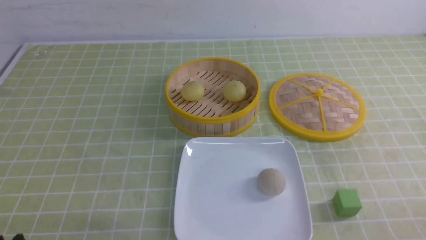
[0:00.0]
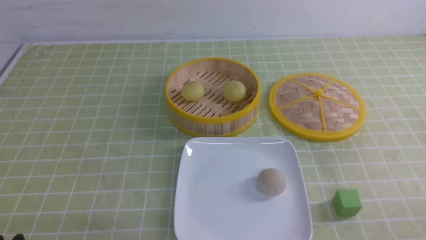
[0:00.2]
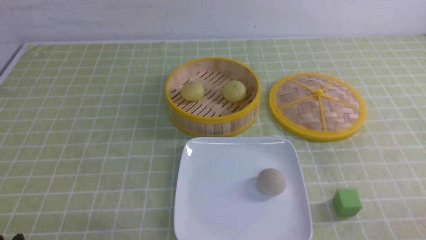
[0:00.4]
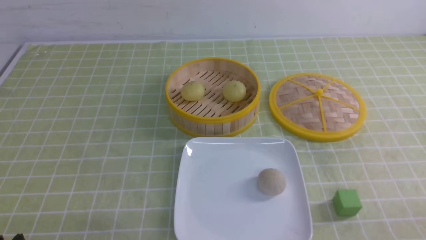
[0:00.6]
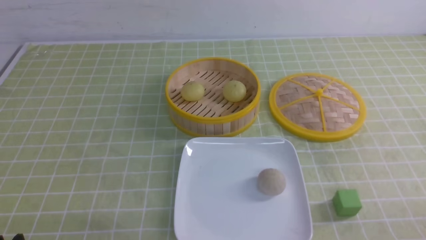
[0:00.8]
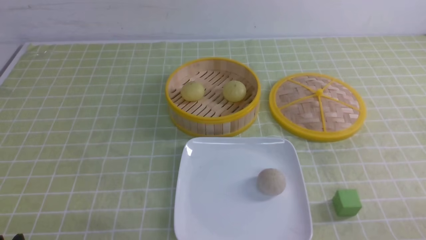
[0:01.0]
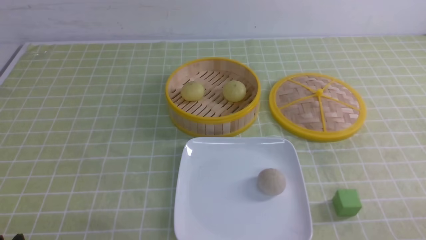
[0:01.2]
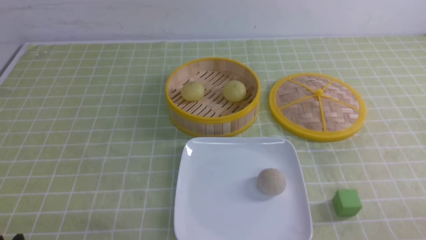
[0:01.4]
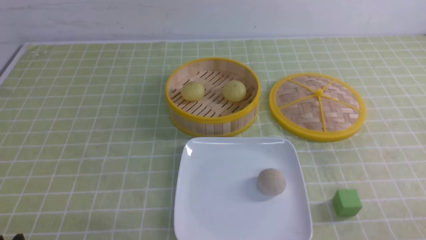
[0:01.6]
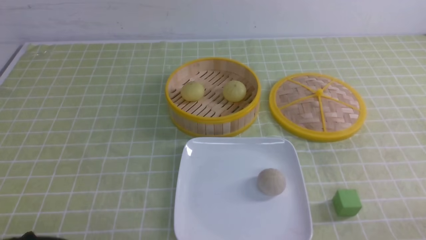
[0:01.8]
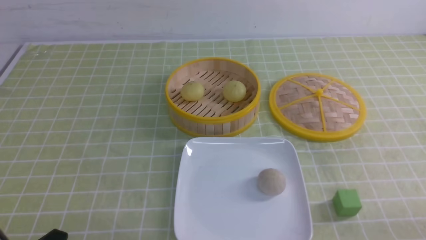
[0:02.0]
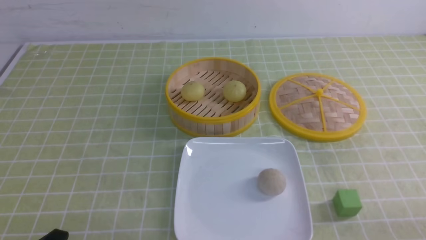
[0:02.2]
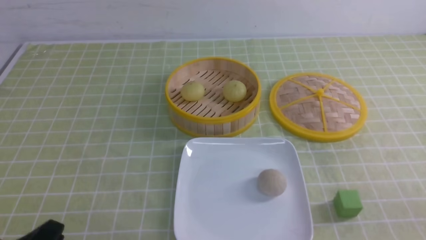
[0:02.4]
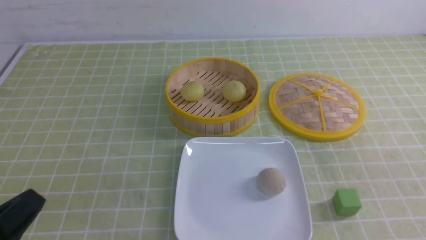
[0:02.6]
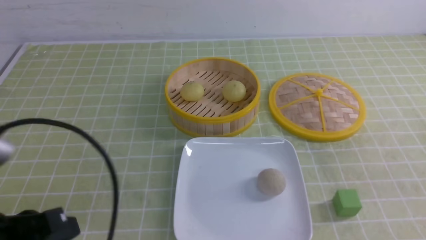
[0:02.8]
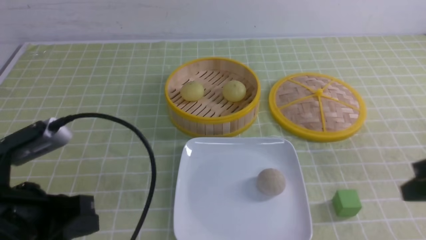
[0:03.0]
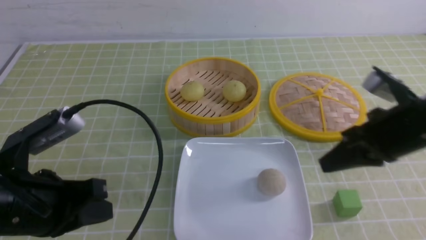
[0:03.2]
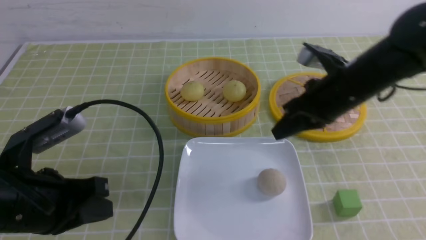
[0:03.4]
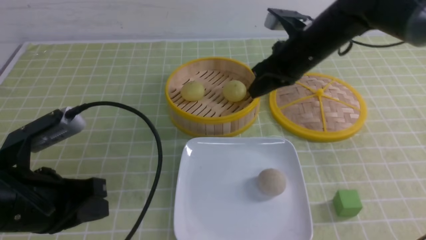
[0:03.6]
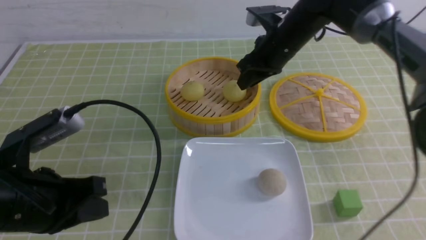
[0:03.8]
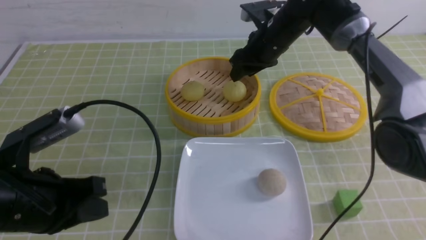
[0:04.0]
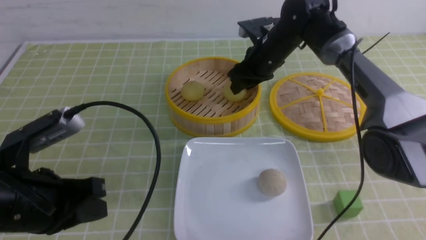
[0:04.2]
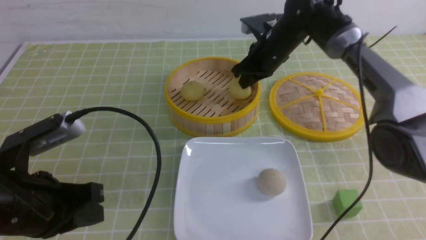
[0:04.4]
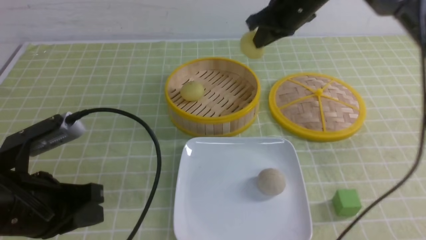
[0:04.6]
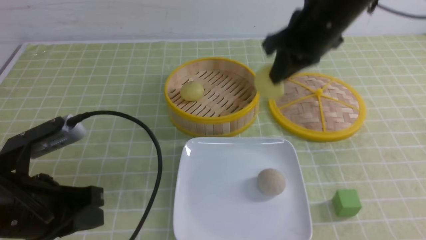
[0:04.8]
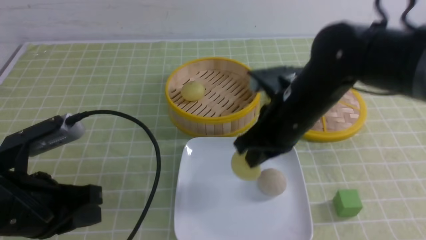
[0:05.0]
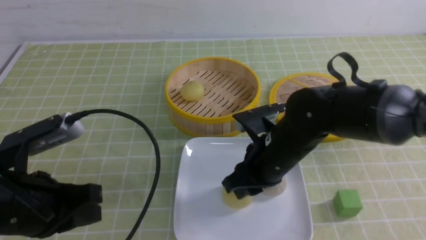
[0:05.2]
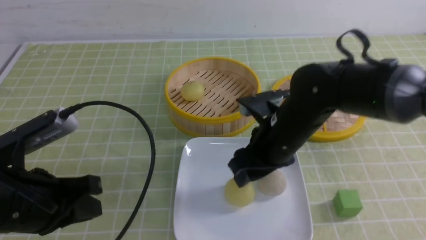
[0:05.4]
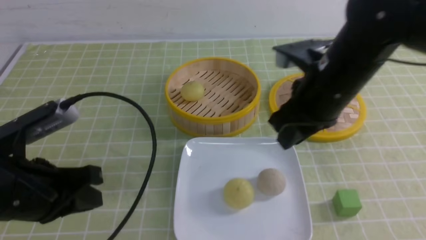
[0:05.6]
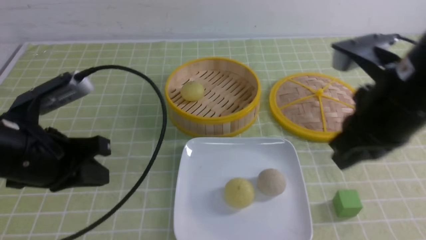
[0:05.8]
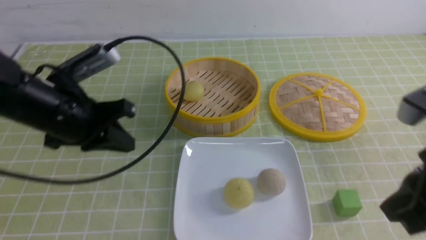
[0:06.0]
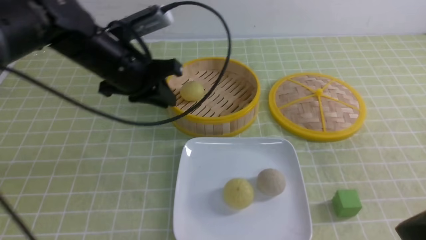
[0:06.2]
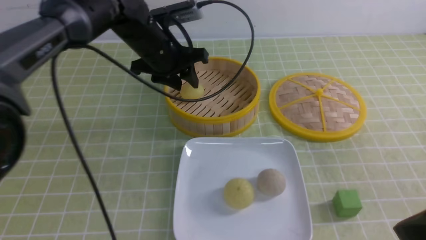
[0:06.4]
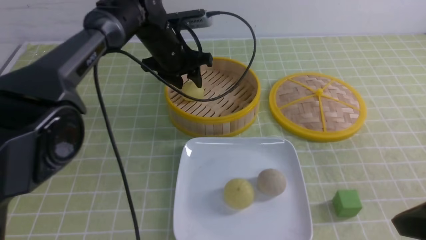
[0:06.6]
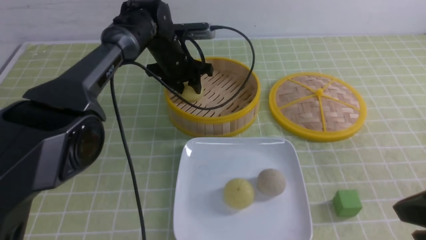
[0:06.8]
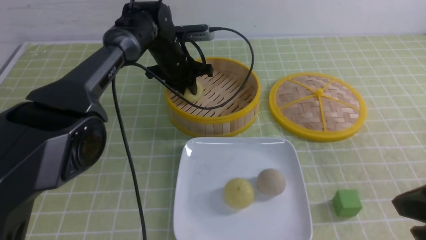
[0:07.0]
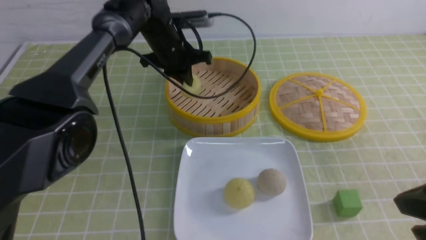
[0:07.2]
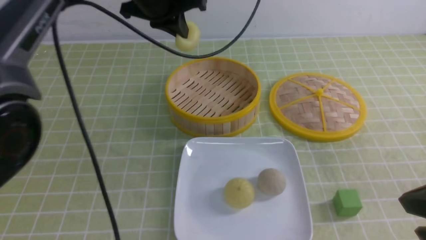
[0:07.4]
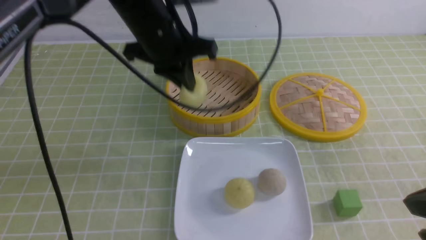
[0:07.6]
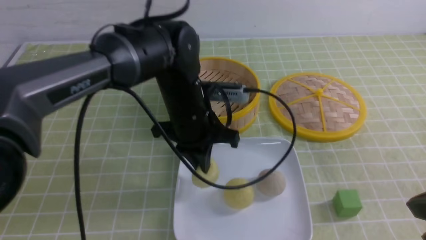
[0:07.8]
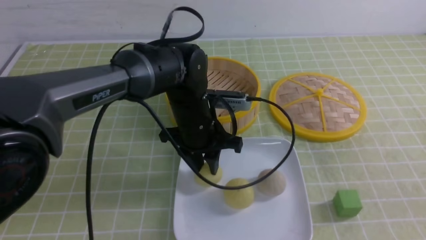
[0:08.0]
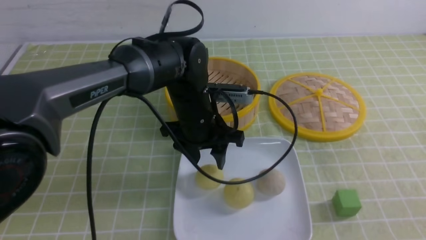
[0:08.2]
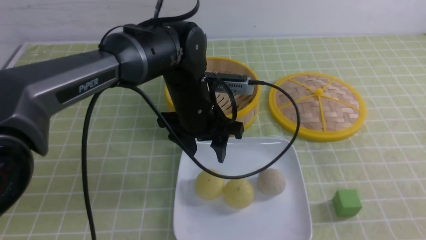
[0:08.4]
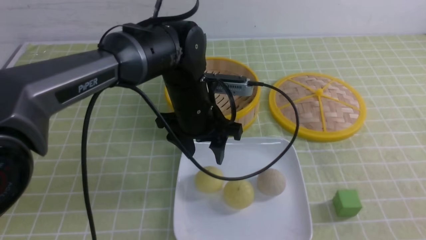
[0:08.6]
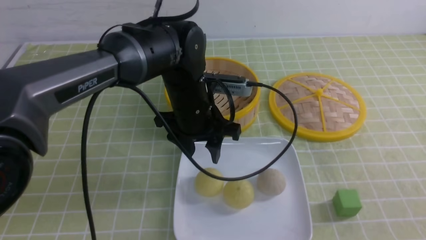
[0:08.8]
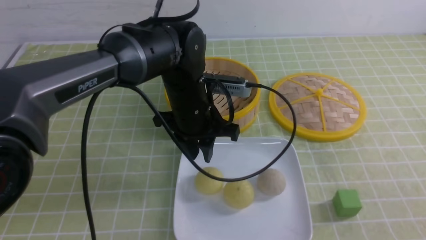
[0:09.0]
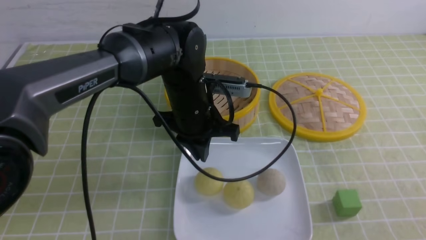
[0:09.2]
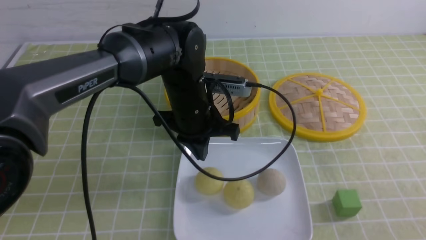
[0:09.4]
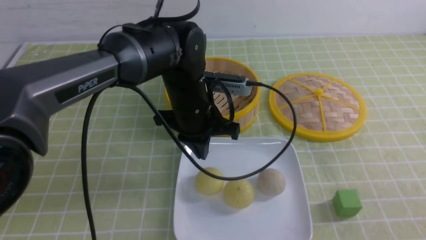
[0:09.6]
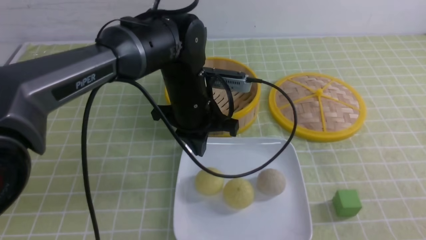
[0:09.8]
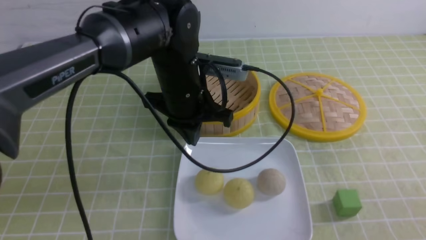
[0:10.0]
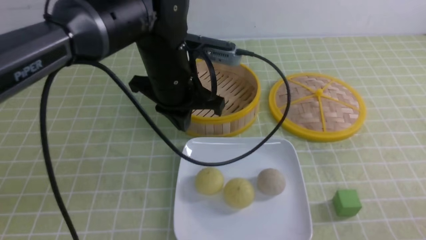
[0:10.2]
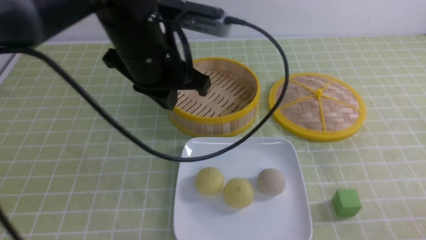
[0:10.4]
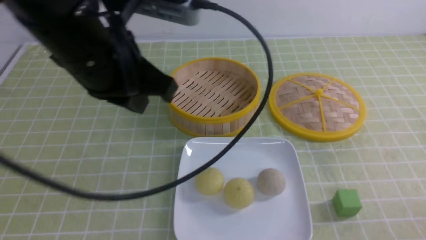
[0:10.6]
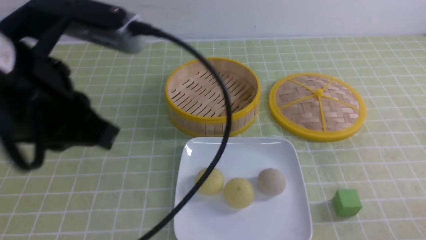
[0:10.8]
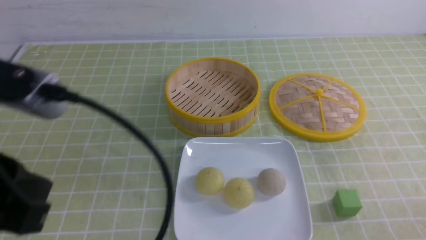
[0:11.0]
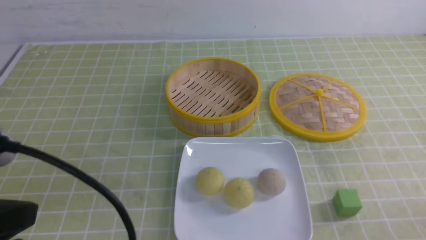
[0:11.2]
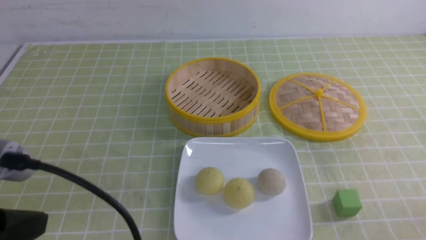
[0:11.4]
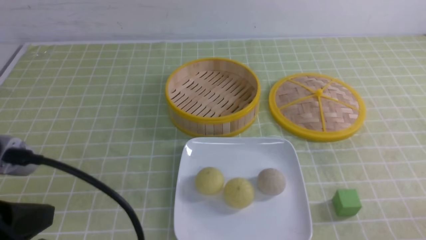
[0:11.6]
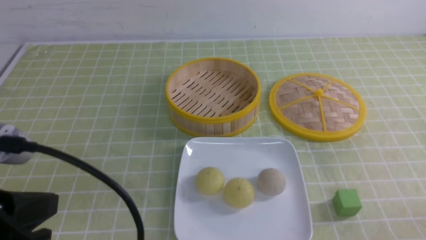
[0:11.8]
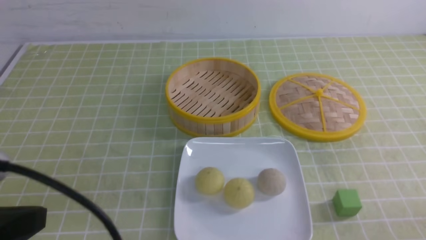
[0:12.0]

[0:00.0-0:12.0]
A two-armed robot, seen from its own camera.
Step, 0:00.0 to 0:04.2: use the right arm to grab the steamed stuffed bun that is closest to it.
Step, 0:04.4 to 0:05.2: use the right arm to put the steamed stuffed bun into the plate.
Step, 0:05.4 to 0:07.0: use the left arm to grab the steamed stuffed bun that is closest to it.
Step, 0:07.2 to 0:08.2: use the left arm to put the steamed stuffed bun into the plate.
0:01.6 to 0:03.0: The left gripper moves upward and forward, about 15 cm, and closes, while the right gripper heads forward and upward, covering approximately 20 cm, and closes its fingers.
0:03.0 to 0:04.4: The right gripper goes some 35 cm forward and to the left, and opens, then closes again.
0:04.4 to 0:06.0: The left gripper heads forward, covering roughly 15 cm; the right gripper shifts about 35 cm backward, and opens, then closes again.
0:06.0 to 0:07.6: The left gripper goes some 15 cm to the right and forward, and opens and closes again.
0:07.6 to 0:09.0: The left gripper is displaced downward by roughly 5 cm, and opens up. The right gripper travels backward by some 10 cm.
0:09.0 to 0:10.4: The left gripper moves upward, backward and to the left, roughly 15 cm, and closes; the right gripper travels downward by some 10 cm.
0:10.4 to 0:12.0: The left gripper shifts approximately 25 cm backward and to the left.

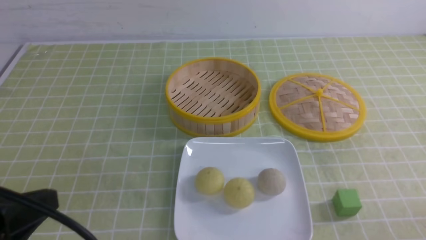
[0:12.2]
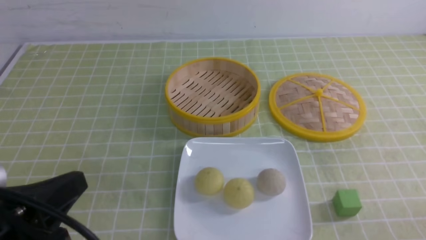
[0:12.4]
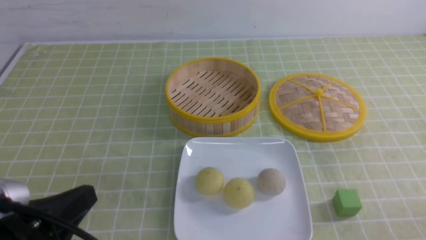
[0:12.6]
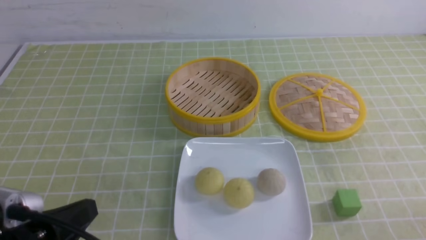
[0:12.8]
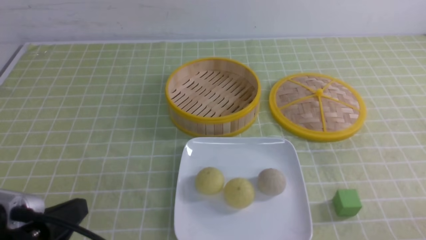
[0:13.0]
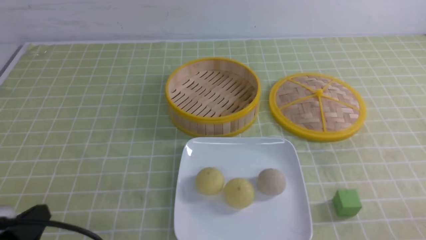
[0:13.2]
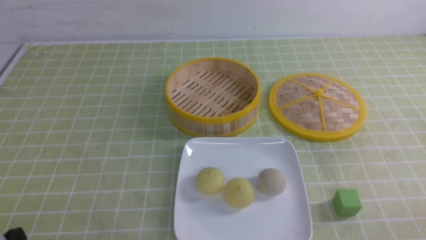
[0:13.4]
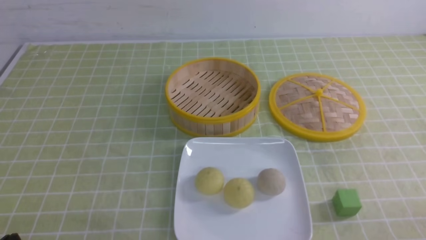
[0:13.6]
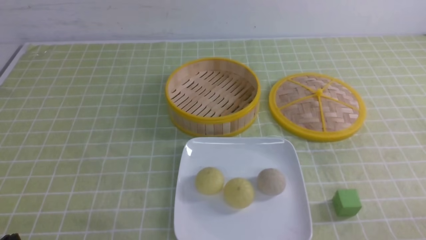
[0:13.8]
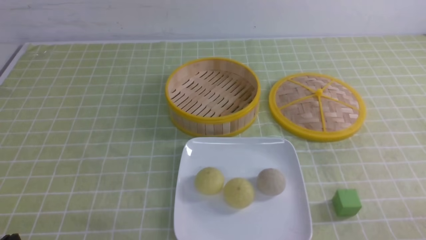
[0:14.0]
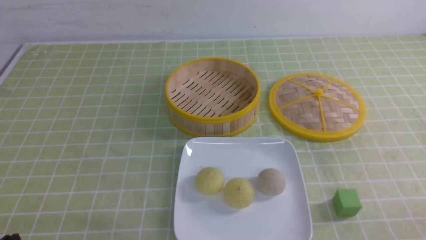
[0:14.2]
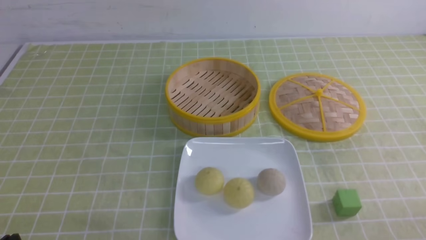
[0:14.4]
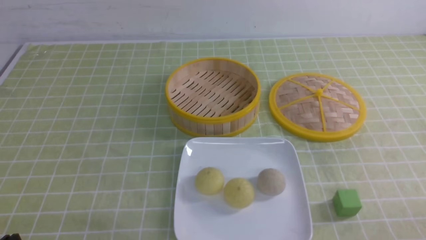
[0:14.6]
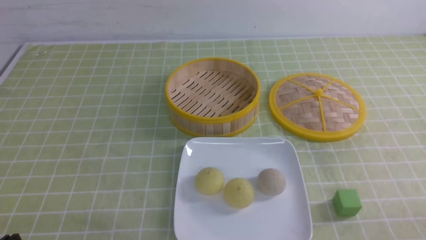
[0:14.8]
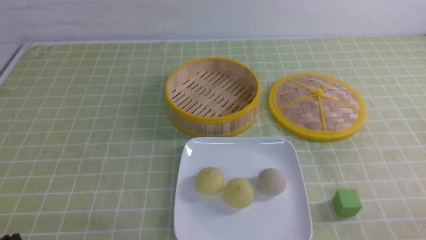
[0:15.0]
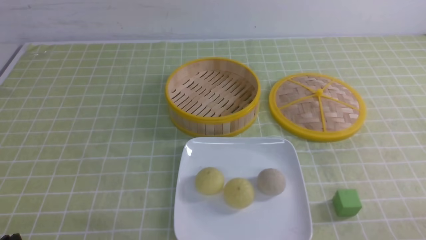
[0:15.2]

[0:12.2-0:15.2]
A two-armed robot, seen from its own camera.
0:12.2 to 0:13.8: The left gripper moves downward, approximately 15 cm.
0:13.8 to 0:15.2: The two grippers keep their place.

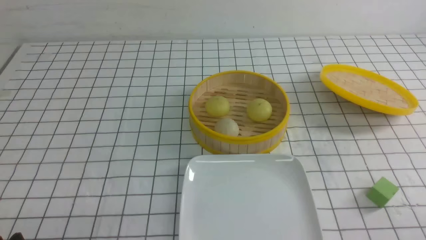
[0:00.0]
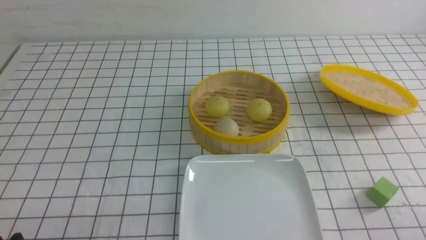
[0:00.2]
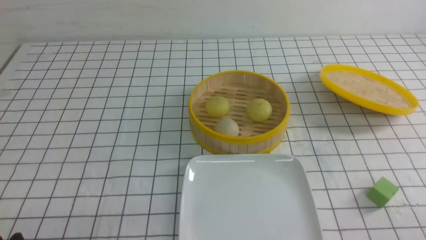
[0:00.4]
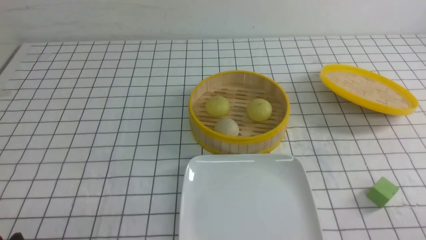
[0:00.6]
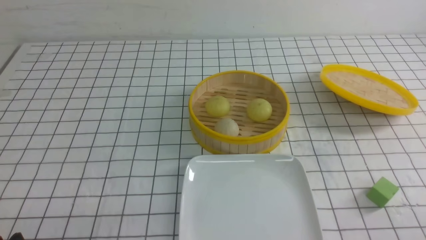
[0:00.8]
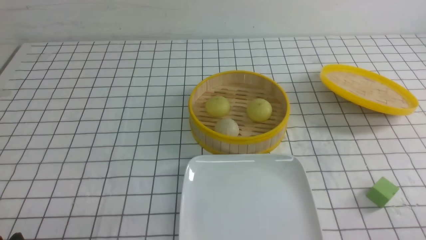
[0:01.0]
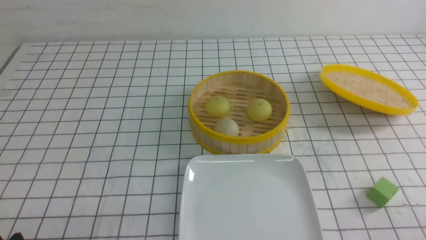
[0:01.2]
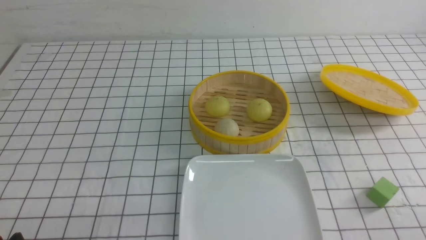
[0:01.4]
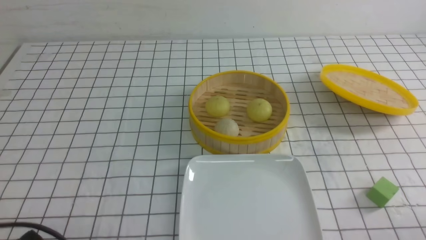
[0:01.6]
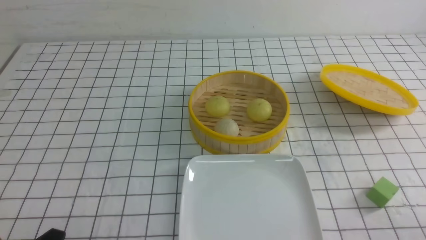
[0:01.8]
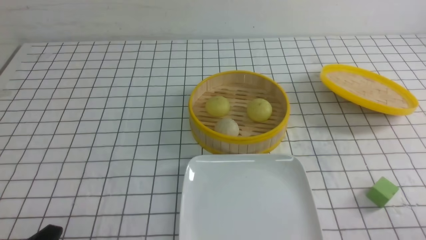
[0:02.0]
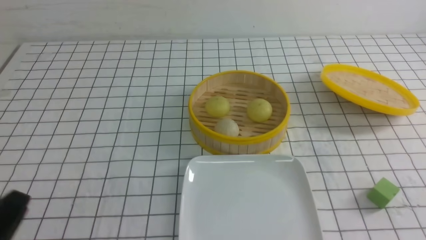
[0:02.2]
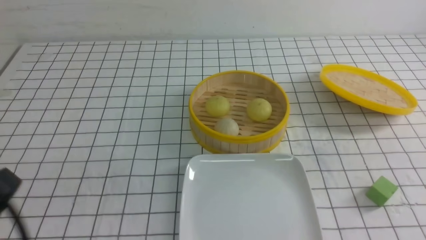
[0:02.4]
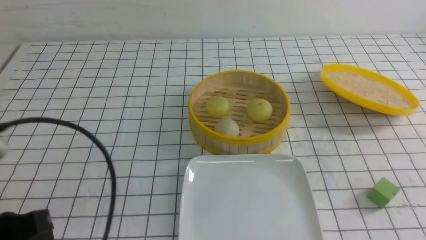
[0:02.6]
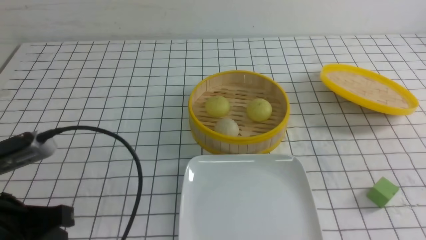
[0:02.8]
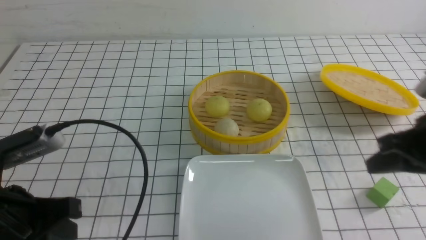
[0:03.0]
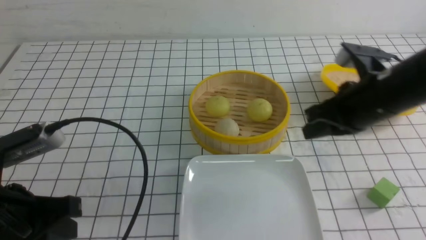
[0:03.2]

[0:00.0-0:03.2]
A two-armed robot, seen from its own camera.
0:01.6 to 0:03.2: The right gripper shifts some 30 cm forward, to the left and upward, and closes up, while the left gripper heads upward and forward, covering roughly 15 cm, and closes its fingers.
